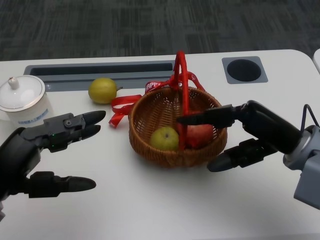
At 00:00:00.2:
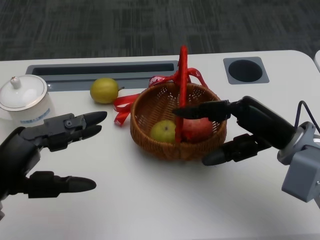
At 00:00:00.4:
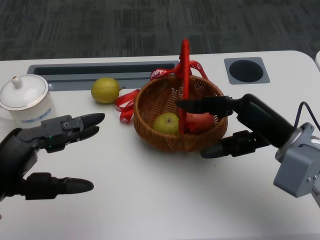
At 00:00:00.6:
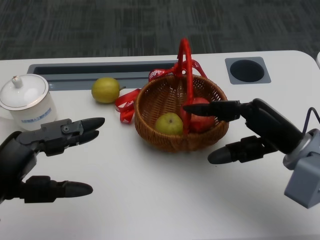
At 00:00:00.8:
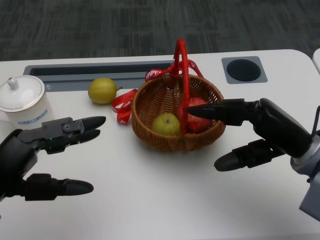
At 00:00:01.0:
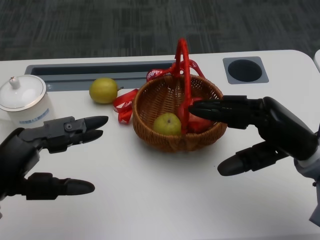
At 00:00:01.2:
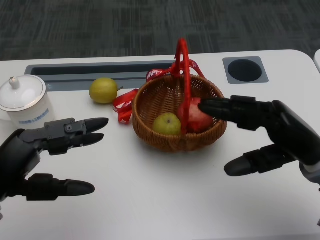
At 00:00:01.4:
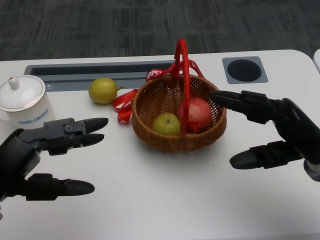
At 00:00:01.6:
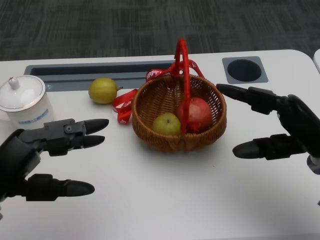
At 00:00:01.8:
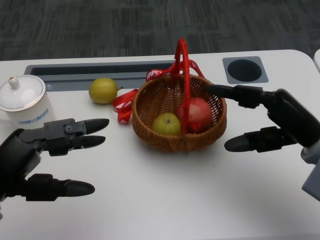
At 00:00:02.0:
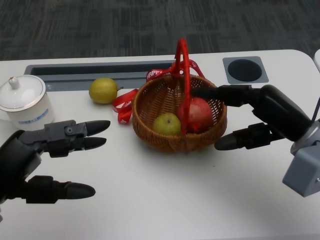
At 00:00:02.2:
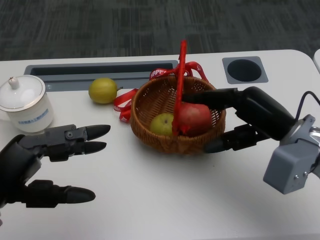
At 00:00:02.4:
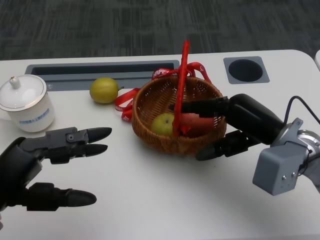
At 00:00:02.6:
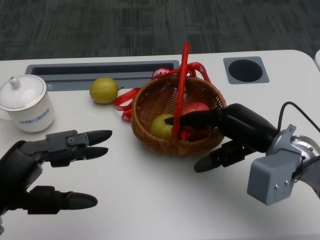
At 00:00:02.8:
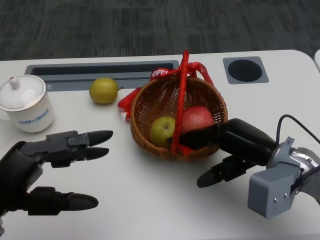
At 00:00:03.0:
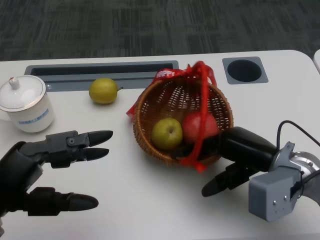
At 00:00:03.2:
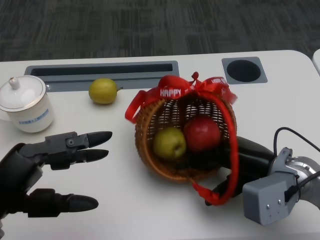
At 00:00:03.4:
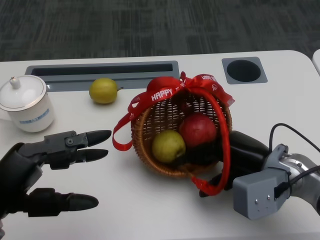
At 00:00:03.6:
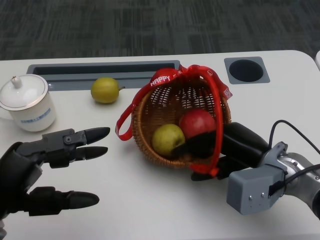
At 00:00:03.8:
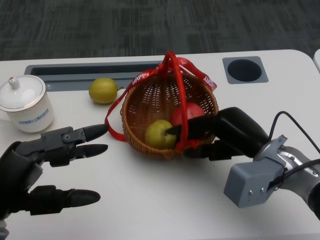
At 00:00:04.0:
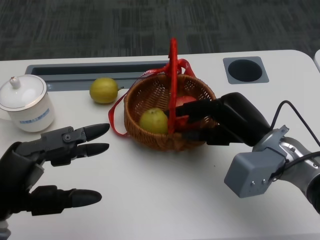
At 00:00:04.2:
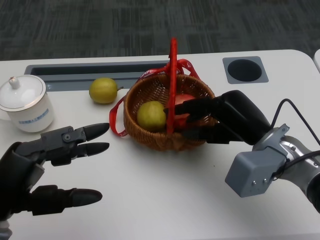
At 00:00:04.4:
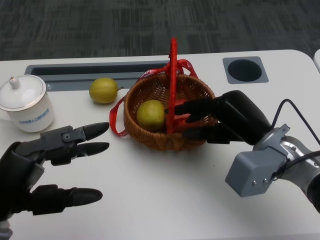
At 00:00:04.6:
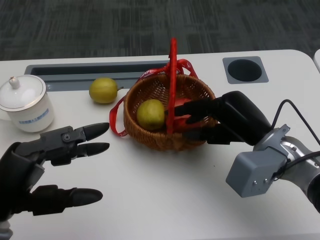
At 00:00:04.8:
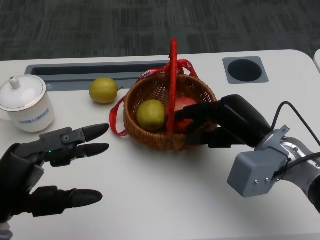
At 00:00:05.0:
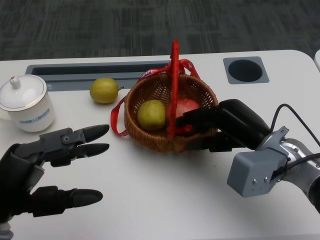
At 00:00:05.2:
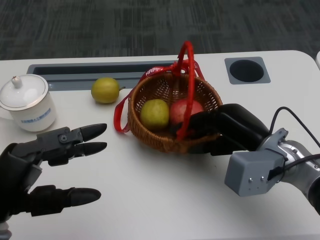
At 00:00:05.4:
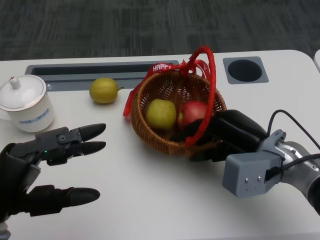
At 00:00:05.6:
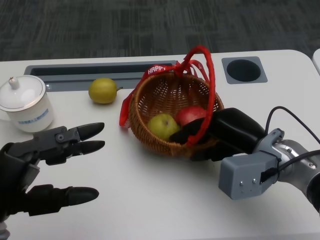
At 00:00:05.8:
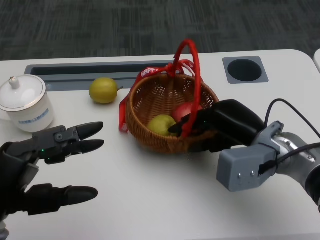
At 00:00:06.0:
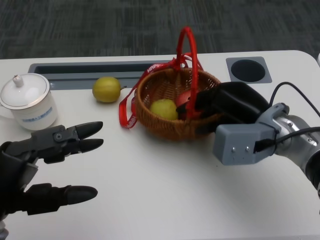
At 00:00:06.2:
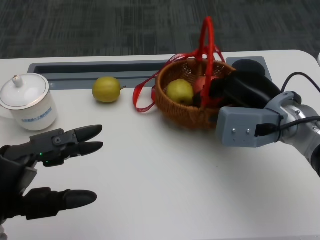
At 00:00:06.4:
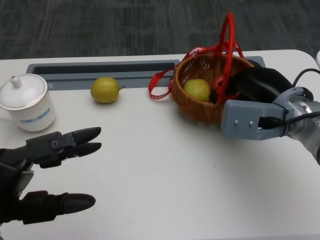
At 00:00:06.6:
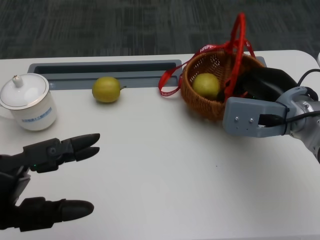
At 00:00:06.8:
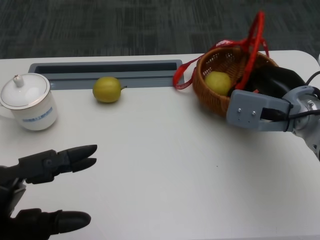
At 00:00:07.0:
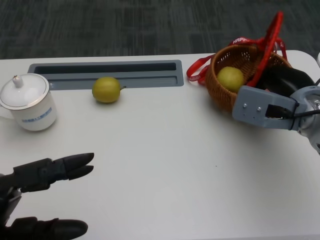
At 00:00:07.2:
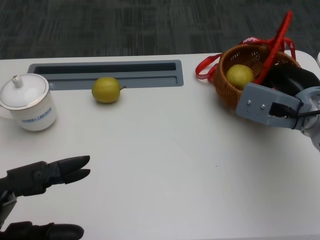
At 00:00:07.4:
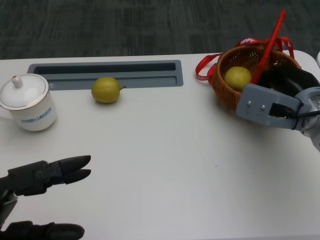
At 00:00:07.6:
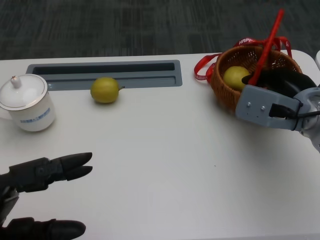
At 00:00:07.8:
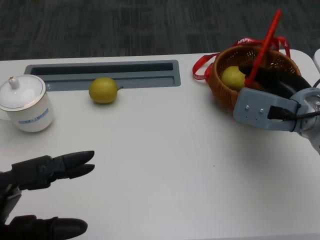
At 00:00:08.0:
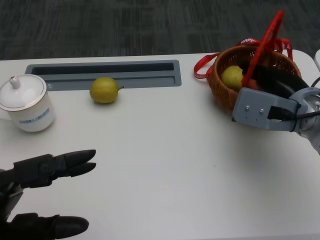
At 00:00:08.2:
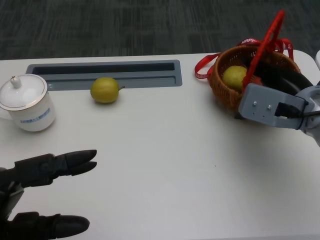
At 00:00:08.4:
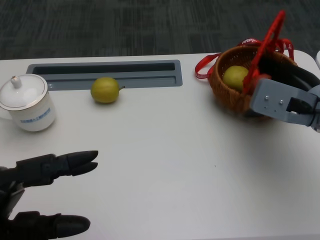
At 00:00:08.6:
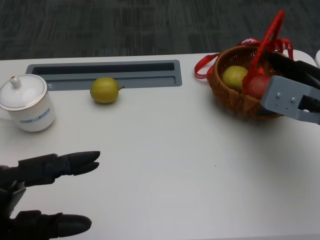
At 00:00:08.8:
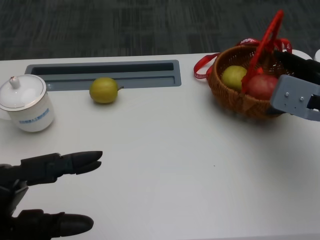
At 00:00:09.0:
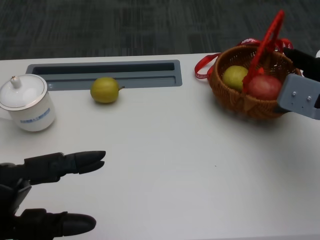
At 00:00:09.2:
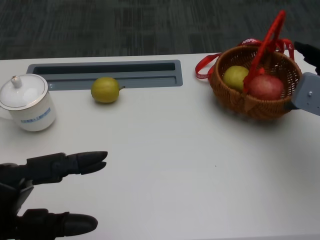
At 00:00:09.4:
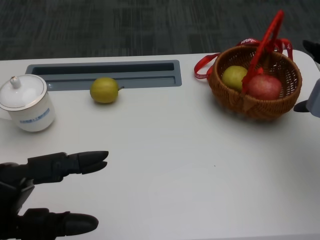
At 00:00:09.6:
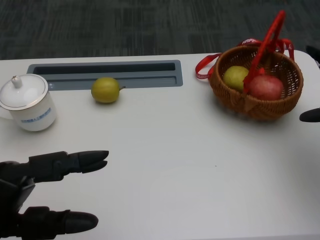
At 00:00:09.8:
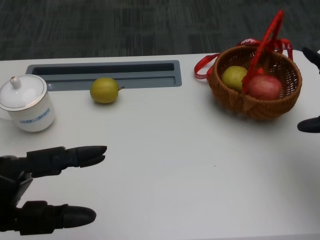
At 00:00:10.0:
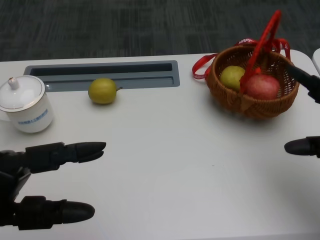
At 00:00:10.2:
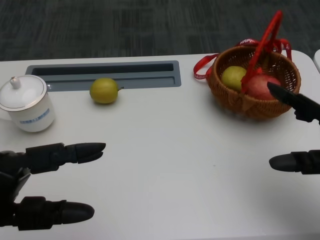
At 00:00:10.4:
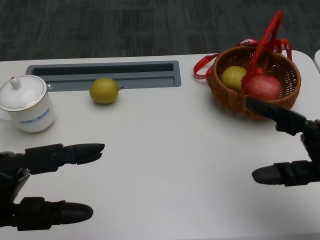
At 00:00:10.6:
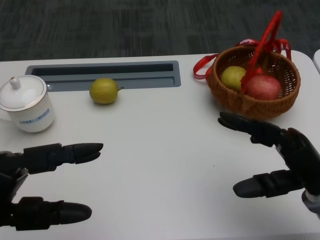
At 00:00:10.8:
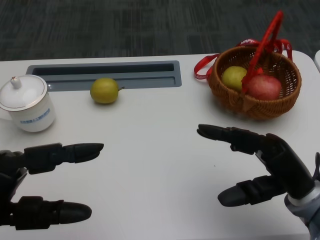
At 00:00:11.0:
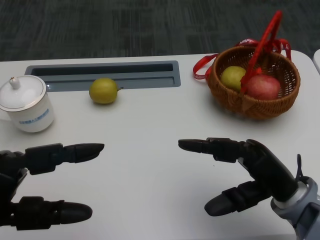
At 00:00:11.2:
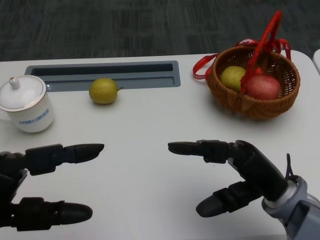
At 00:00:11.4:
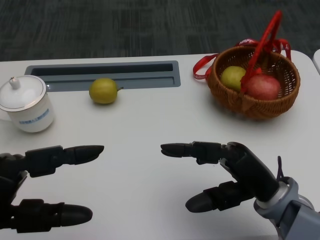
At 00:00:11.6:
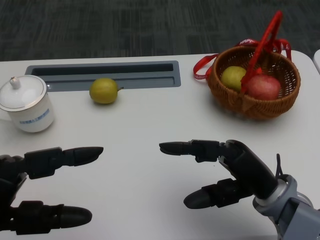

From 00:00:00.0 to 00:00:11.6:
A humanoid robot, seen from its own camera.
Step, from 00:00:00.0 to 00:00:02.6: Grasp the basket with the right gripper.
Step, from 00:00:03.0 to 00:00:04.4: Move the basket to the front of the table with the right gripper.
From 00:00:01.4 to 00:00:02.8: The right hand moves roughly 5 cm.
From 00:00:04.4 to 00:00:05.8: There are only small adjustments of the hands.
From 00:00:05.8 to 00:00:07.2: The right hand travels to the right by about 5 cm, while the left hand shifts roughly 5 cm backward.
From 00:00:07.2 to 00:00:08.8: The hands make only small movements.
From 00:00:08.8 to 00:00:10.2: The right hand is displaced backward and downward by approximately 10 cm.
From 00:00:10.2 to 00:00:11.6: The right hand travels to the left by some 10 cm.
